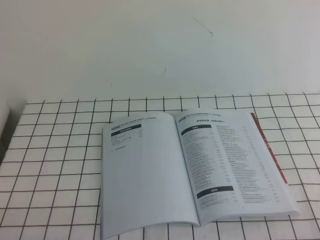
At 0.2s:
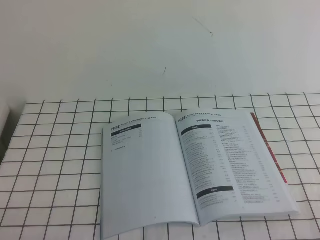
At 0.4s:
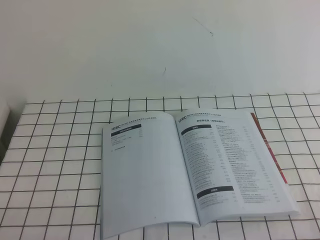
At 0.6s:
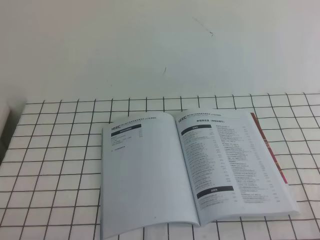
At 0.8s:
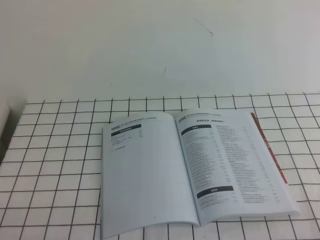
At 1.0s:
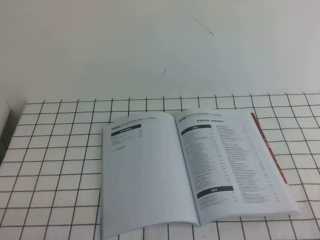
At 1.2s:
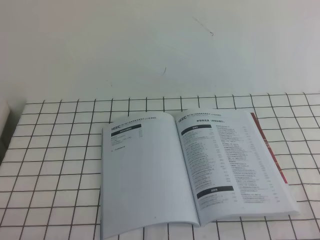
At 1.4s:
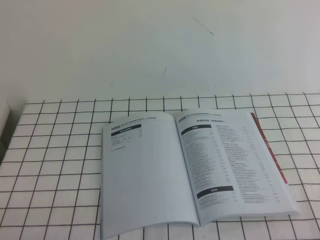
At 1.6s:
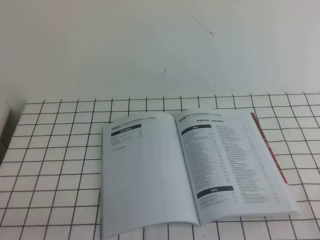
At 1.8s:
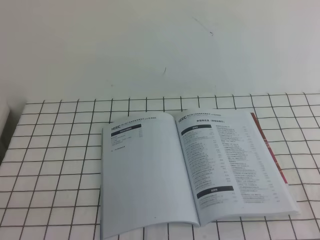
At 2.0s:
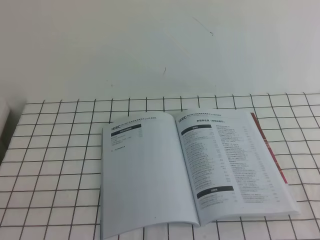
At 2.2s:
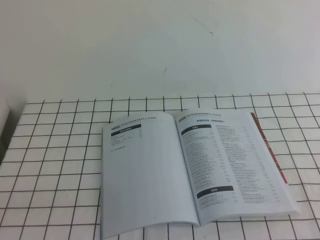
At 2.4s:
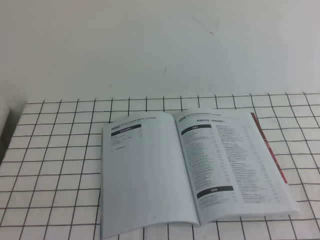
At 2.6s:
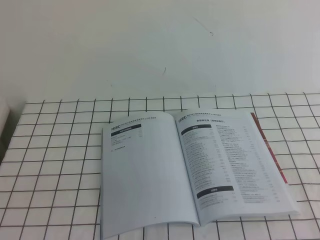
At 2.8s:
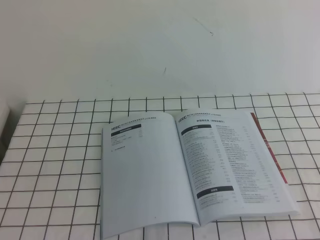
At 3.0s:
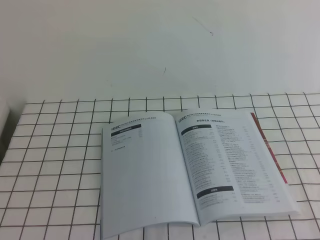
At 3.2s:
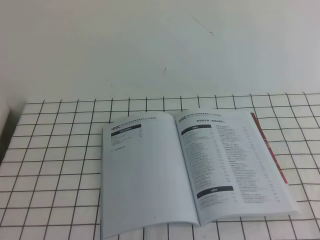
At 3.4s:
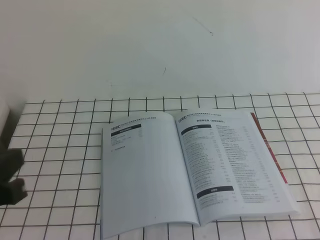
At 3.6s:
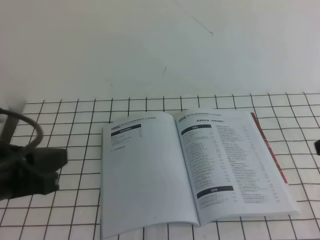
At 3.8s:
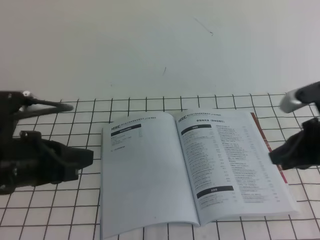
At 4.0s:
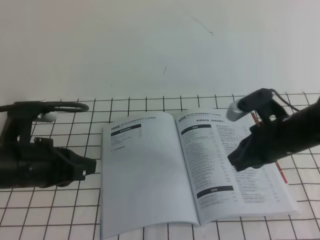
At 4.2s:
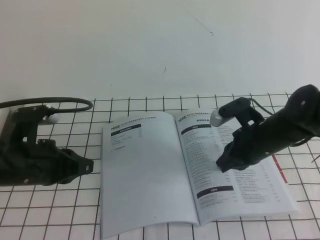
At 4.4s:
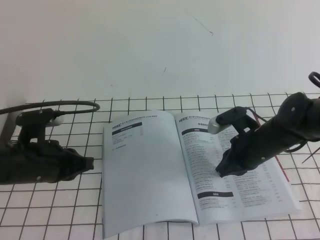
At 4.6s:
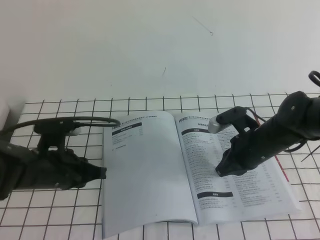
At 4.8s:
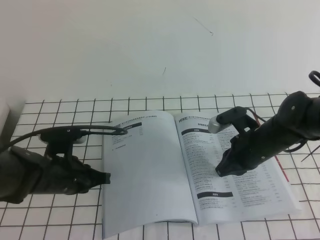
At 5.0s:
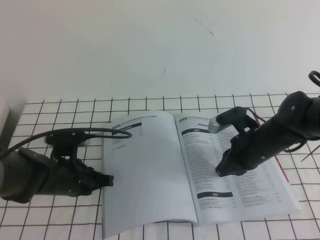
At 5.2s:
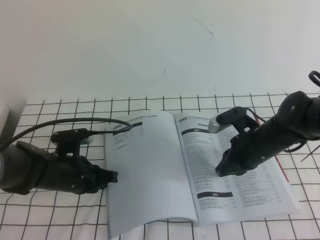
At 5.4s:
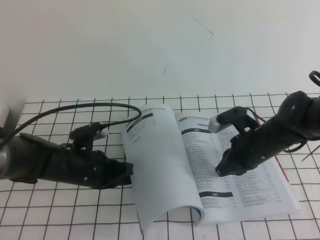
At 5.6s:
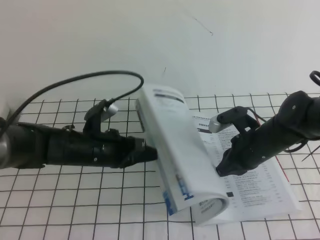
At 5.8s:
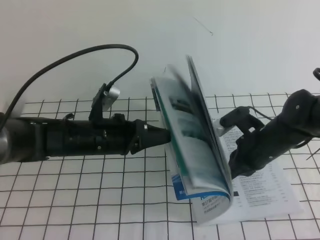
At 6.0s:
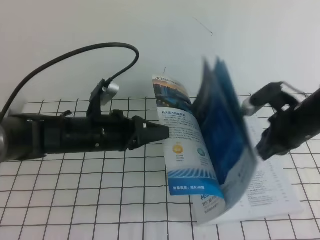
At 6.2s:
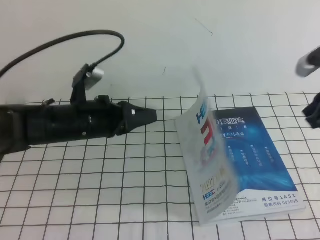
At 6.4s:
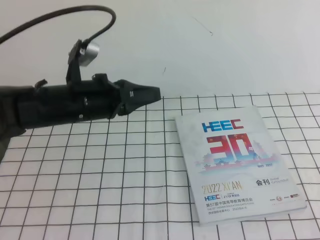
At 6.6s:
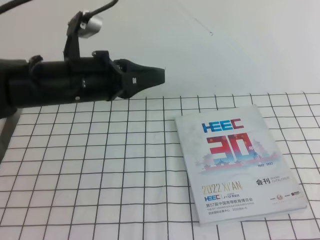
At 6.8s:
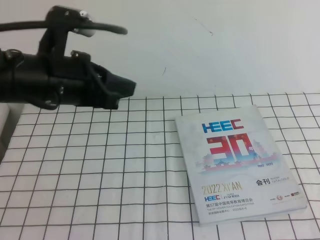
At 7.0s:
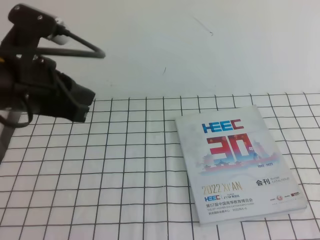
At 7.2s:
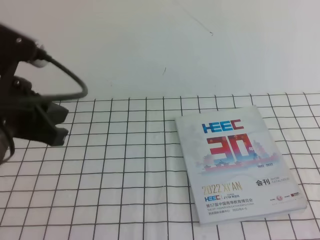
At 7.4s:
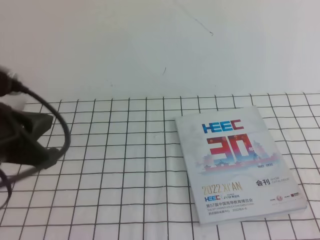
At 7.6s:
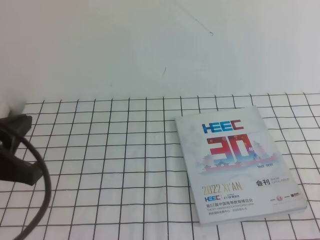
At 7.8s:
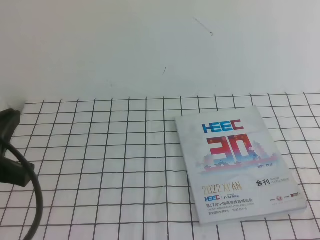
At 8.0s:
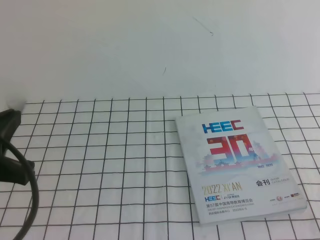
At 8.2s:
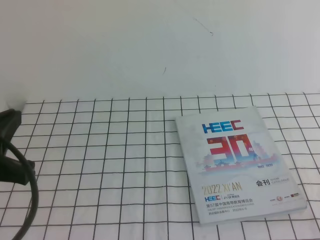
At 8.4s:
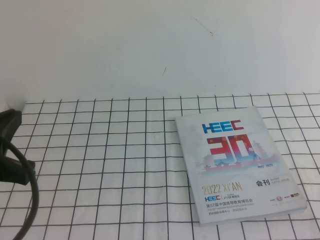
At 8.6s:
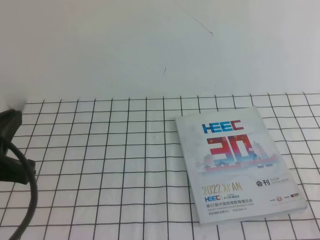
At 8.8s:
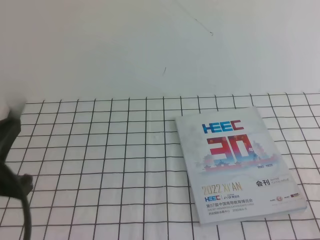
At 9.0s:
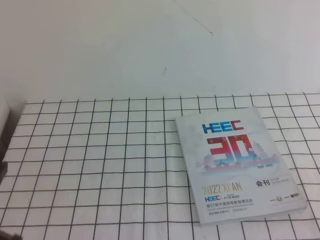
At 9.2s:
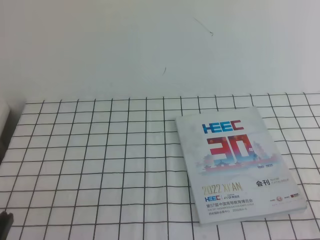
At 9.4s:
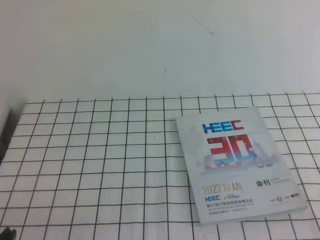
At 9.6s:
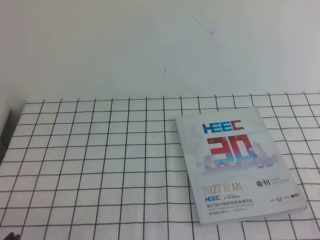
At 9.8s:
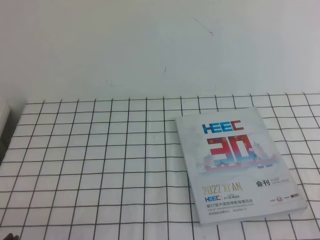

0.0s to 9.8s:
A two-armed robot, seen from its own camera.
Task of the whole recording: on the white tablecloth, hold the book with one hand and close it with the other.
0.0s to 1.4s: Both grippers stay about where they are.
2.8s to 4.2s: The left gripper travels forward by roughly 20 cm. The right gripper shifts roughly 35 cm forward, to the left and downward.
4.2s to 5.6s: The left gripper shifts roughly 10 cm to the right, downward and forward.
5.6s to 7.0s: The left gripper is displaced upward by roughly 20 cm, while the right gripper shifts approximately 40 cm upward, backward and to the right.
7.0s to 8.4s: The left gripper heads backward and to the left, covering about 10 cm.
8.4s to 9.8s: The left gripper heads downward and backward, covering some 20 cm.
